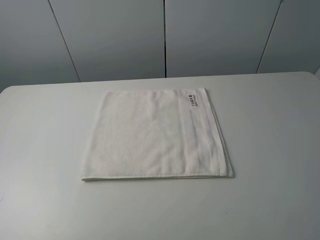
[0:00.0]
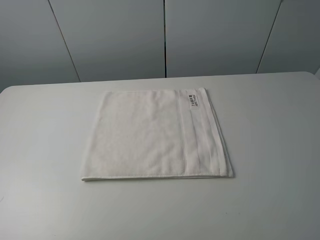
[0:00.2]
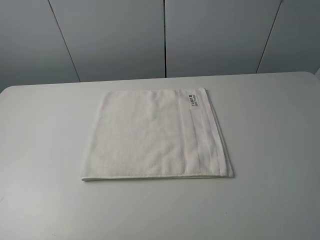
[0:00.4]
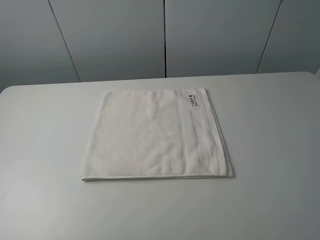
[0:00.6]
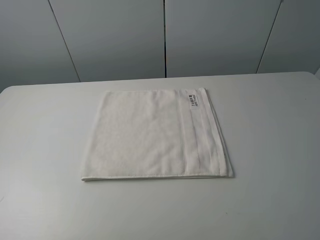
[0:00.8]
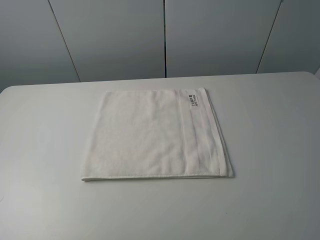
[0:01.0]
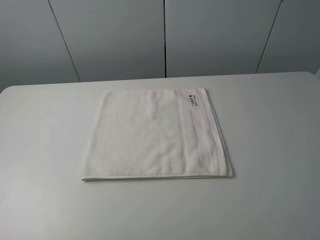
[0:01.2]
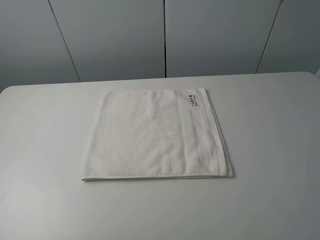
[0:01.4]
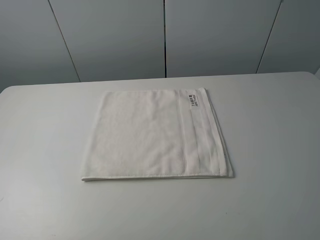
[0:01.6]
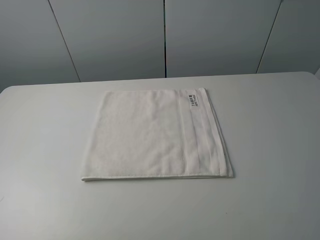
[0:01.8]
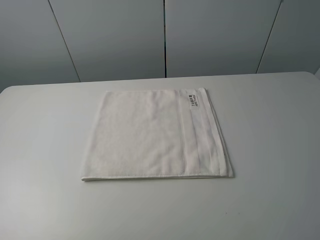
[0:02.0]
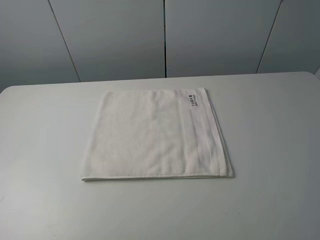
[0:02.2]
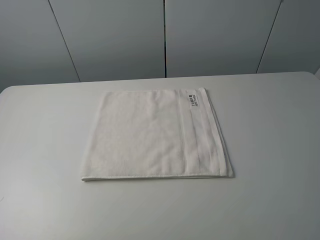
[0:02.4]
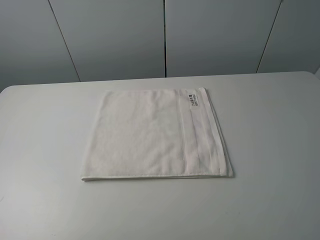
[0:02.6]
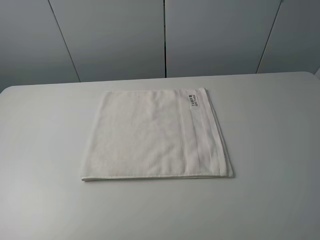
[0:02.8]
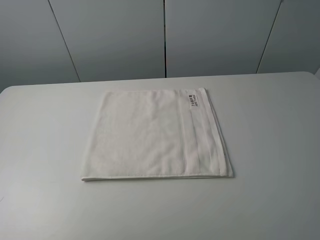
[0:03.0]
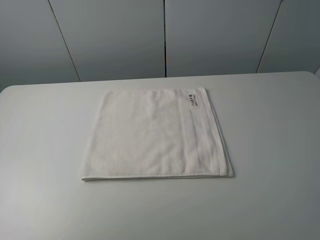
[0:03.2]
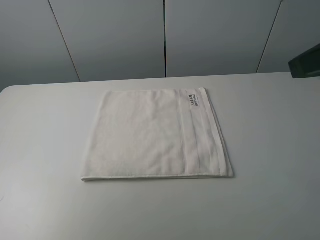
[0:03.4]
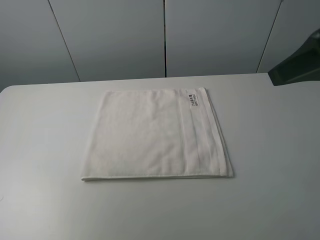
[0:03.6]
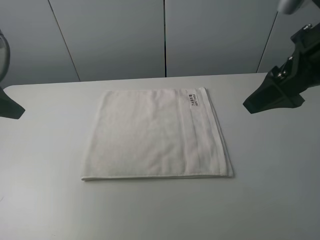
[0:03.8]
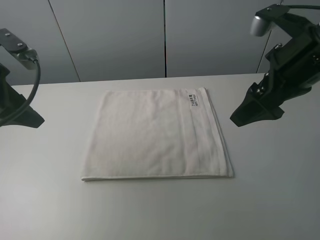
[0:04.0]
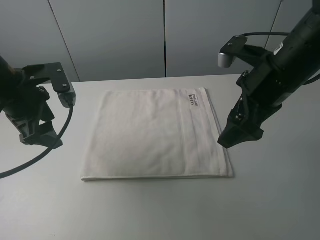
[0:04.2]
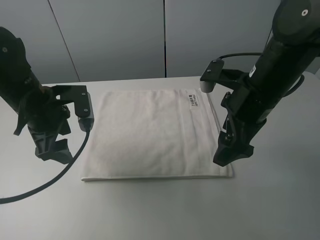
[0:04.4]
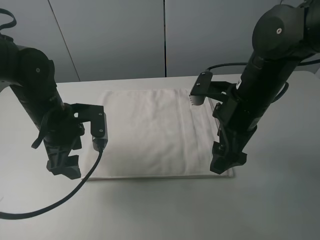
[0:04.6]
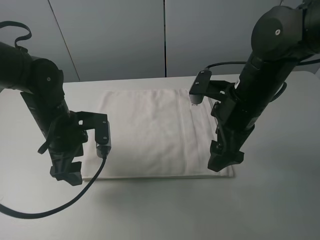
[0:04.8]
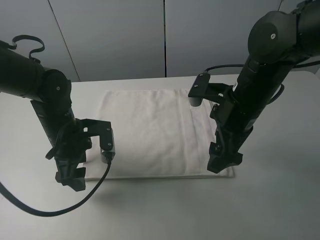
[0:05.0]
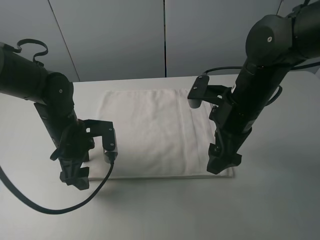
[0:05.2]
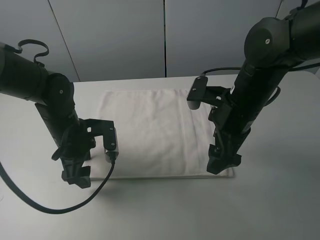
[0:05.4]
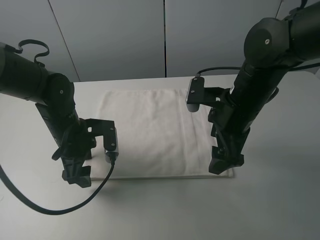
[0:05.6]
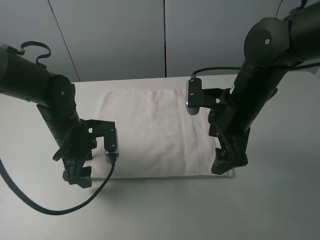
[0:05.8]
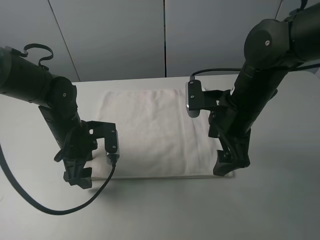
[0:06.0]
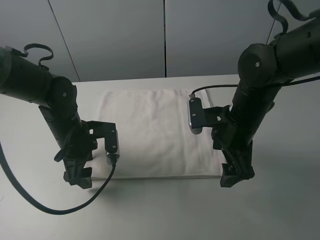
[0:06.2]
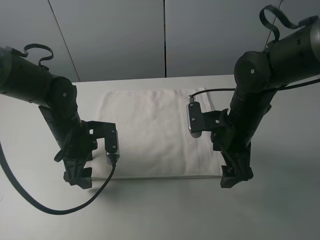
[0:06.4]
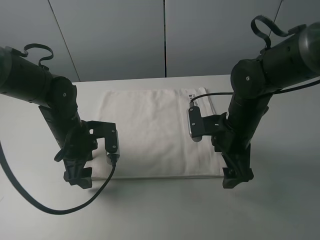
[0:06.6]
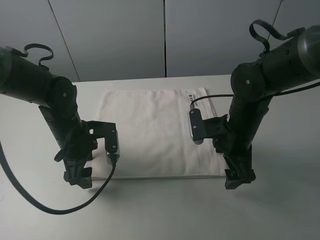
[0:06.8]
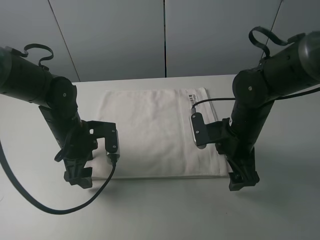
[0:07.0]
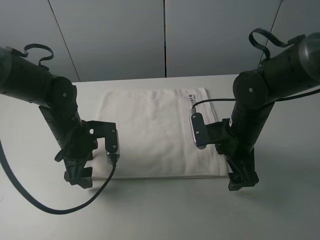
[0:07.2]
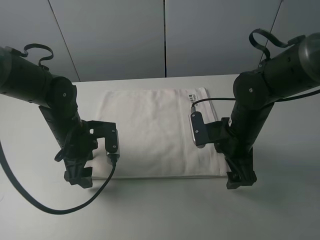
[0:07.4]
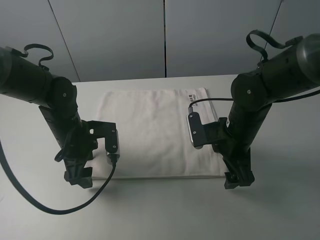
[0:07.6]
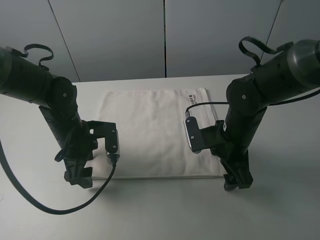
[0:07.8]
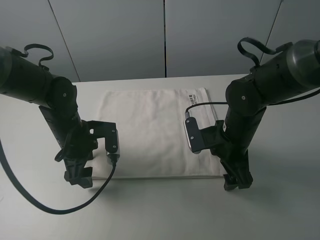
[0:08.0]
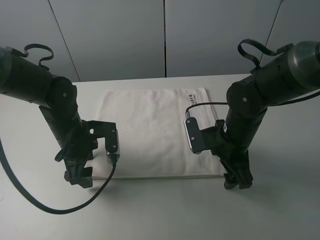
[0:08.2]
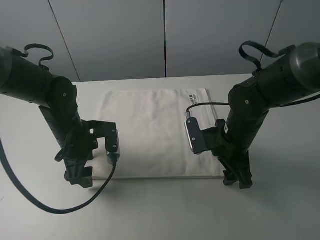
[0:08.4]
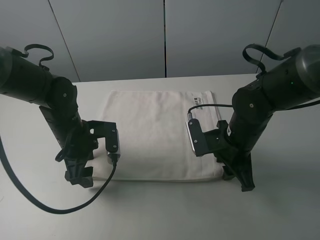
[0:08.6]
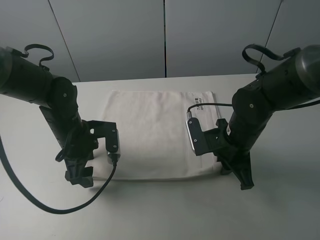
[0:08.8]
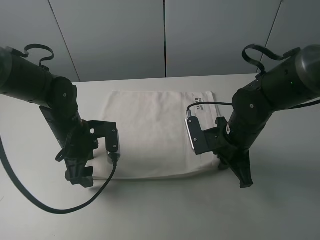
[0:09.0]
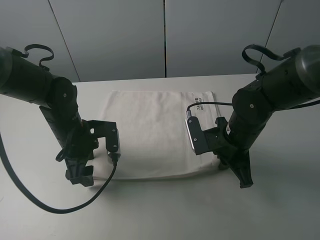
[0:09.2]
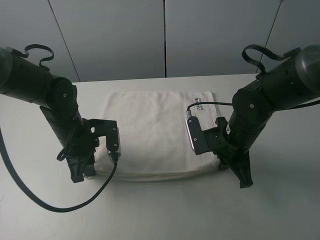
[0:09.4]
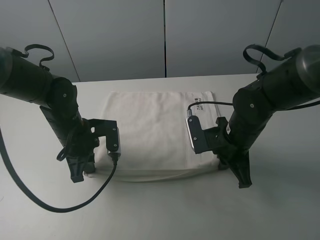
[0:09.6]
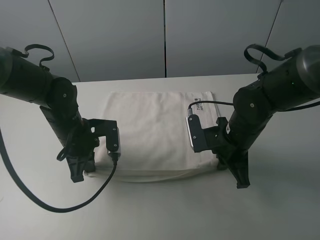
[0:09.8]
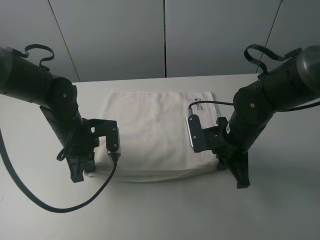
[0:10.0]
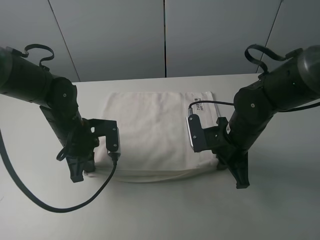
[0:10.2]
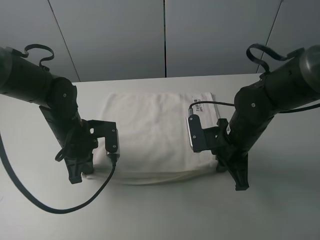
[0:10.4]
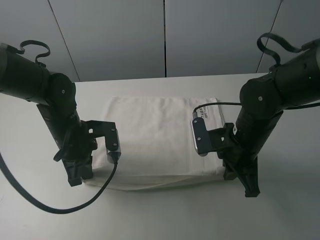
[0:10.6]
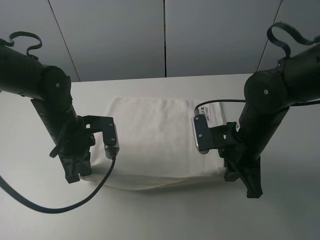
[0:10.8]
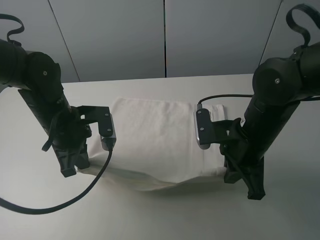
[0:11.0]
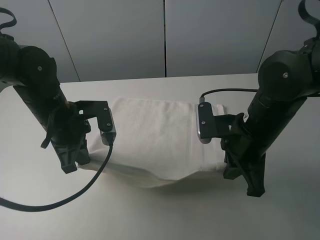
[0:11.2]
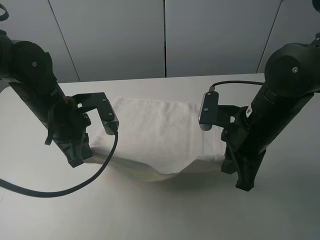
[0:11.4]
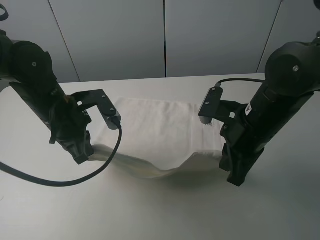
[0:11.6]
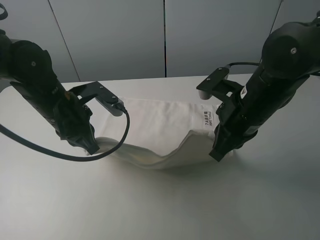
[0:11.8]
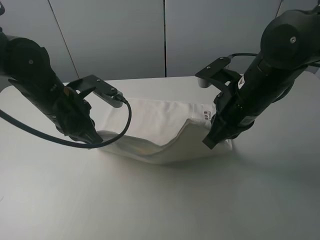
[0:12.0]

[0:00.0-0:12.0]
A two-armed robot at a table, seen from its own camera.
Task of the whole recording: fold the towels on the table.
Step, 0:00.0 to 0:08.8: Grasp the white towel with the right gripper.
Step, 0:09.0 to 0:09.6: Grasp the white towel with the left gripper.
0:00.0 to 0:01.6: The two grippers keep their place.
0:03.0 to 0:04.4: The left gripper travels forward, to the right and downward by some 30 cm. Meanwhile the right gripper is displaced forward, downward and to the left by roughly 25 cm.
0:04.4 to 0:06.0: The left gripper goes some 10 cm downward.
0:06.0 to 0:07.6: The right gripper shifts some 5 cm downward.
0:07.6 to 0:09.0: The right gripper closes its fingers.
0:09.0 to 0:10.4: The left gripper closes.
0:10.4 to 0:12.0: Both grippers travel together upward, roughly 10 cm.

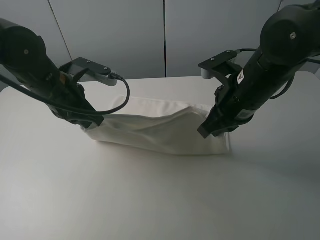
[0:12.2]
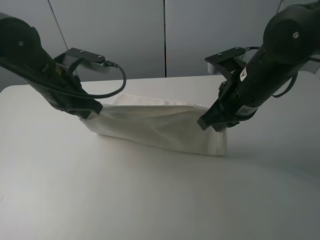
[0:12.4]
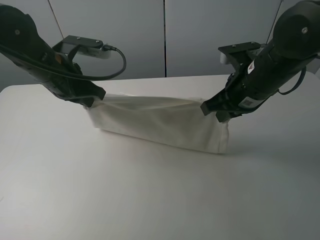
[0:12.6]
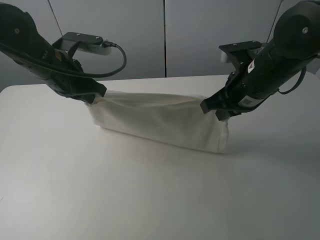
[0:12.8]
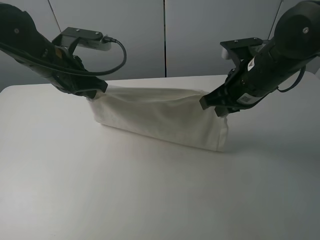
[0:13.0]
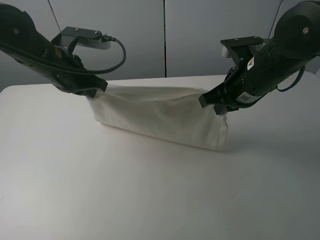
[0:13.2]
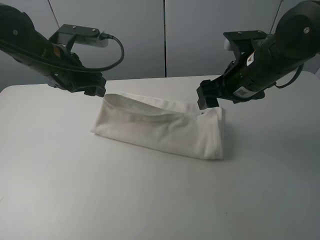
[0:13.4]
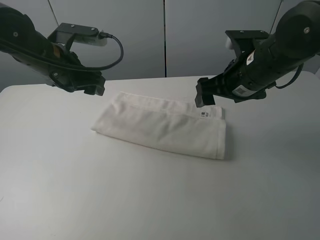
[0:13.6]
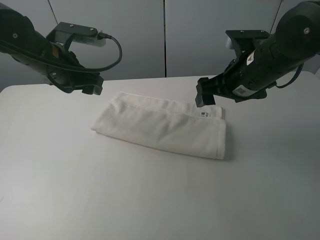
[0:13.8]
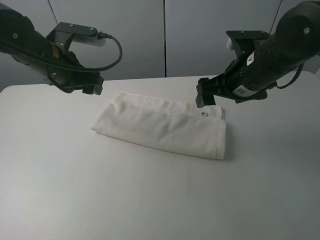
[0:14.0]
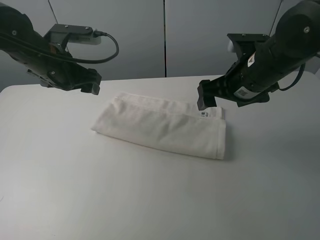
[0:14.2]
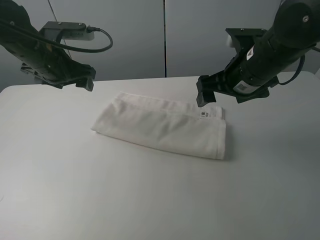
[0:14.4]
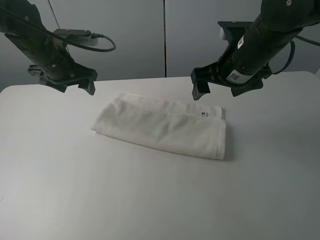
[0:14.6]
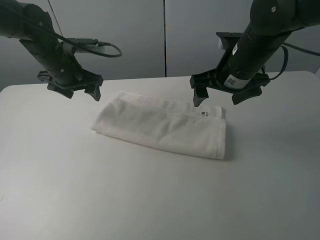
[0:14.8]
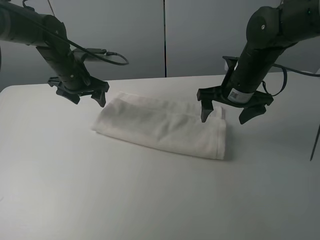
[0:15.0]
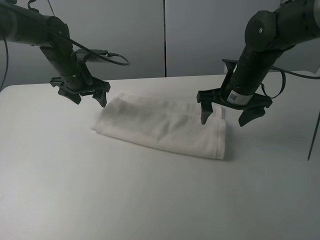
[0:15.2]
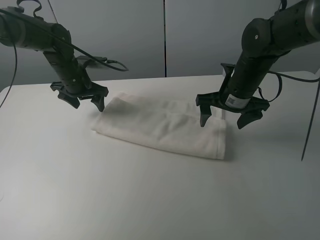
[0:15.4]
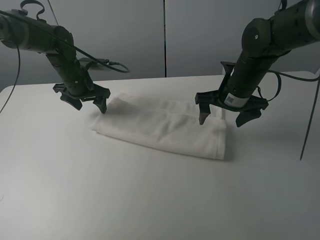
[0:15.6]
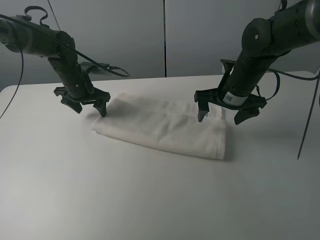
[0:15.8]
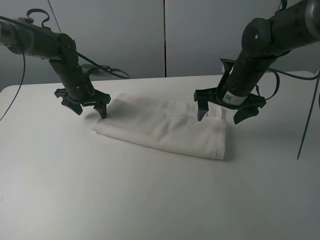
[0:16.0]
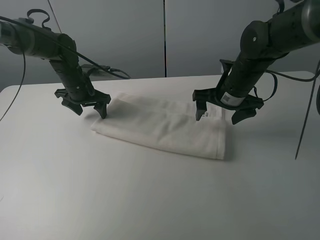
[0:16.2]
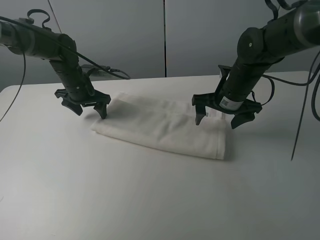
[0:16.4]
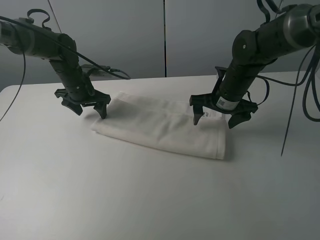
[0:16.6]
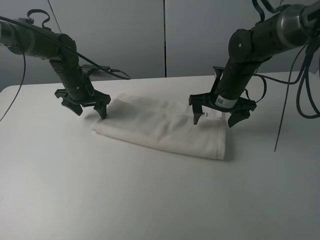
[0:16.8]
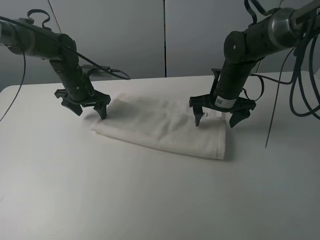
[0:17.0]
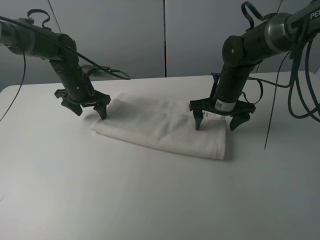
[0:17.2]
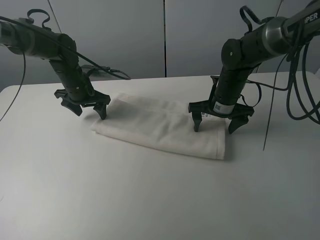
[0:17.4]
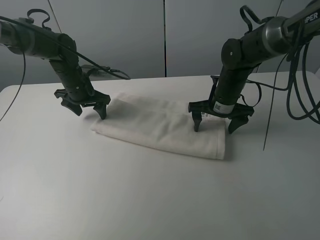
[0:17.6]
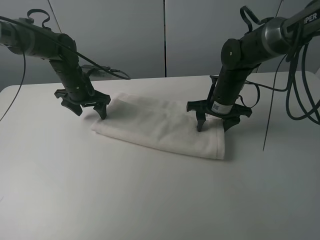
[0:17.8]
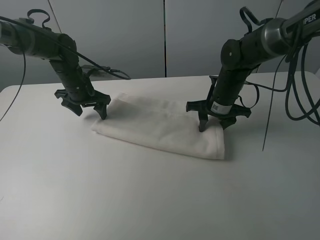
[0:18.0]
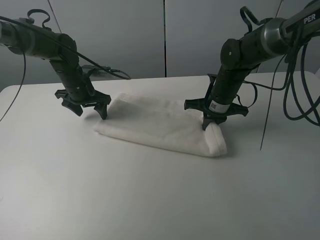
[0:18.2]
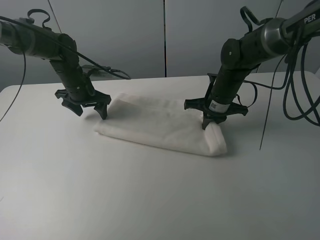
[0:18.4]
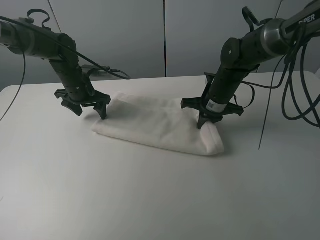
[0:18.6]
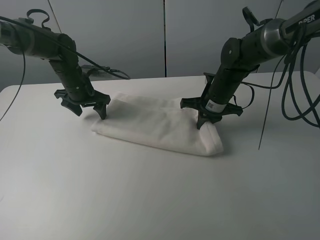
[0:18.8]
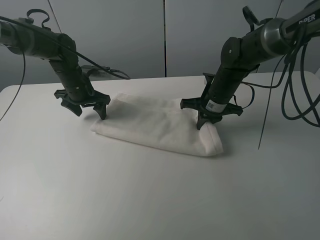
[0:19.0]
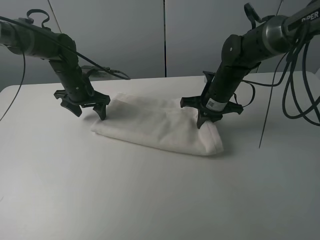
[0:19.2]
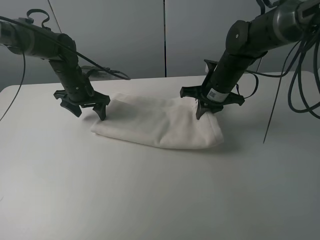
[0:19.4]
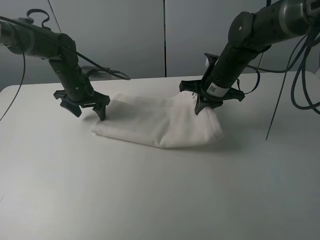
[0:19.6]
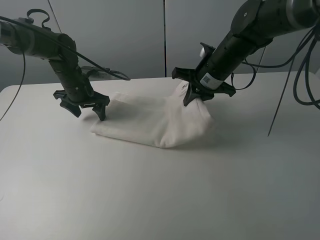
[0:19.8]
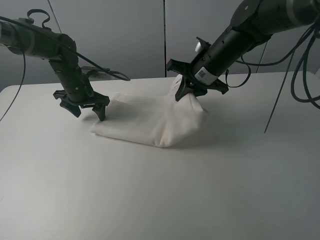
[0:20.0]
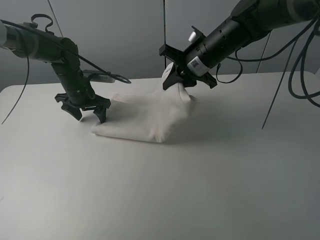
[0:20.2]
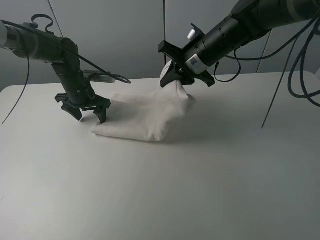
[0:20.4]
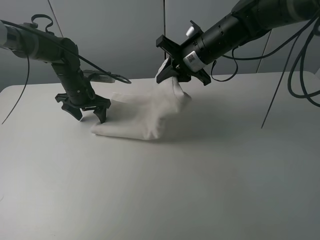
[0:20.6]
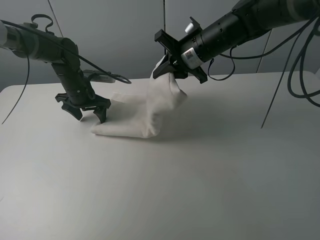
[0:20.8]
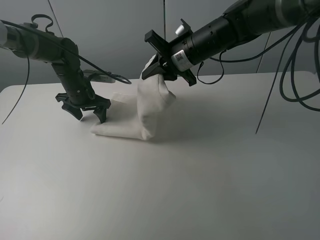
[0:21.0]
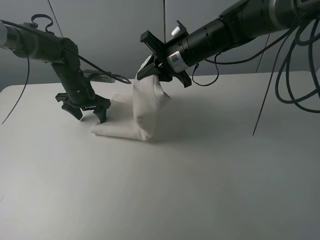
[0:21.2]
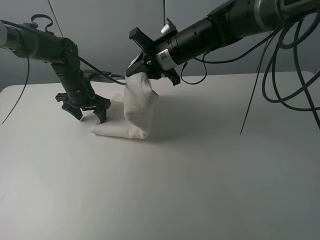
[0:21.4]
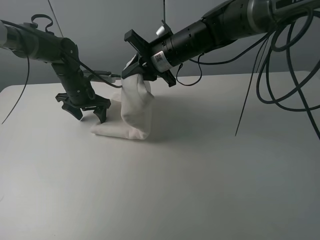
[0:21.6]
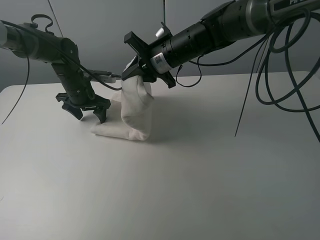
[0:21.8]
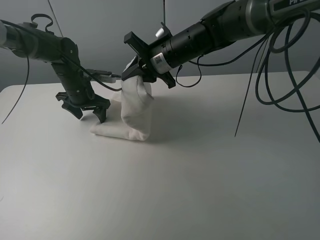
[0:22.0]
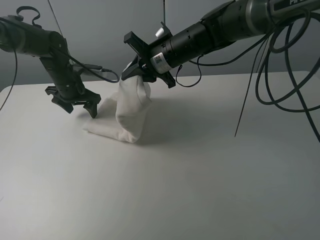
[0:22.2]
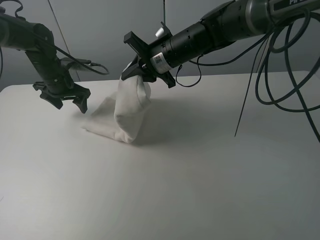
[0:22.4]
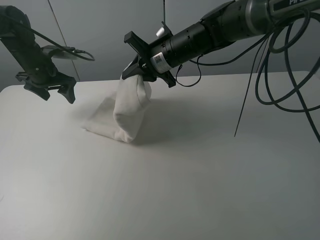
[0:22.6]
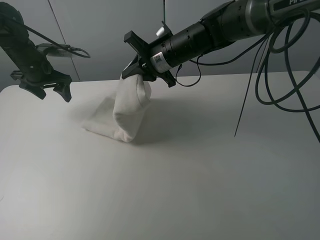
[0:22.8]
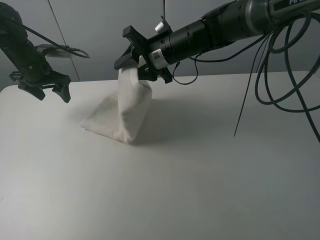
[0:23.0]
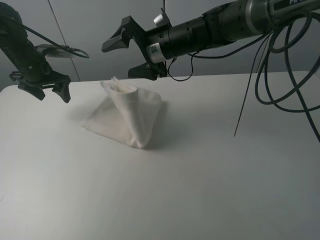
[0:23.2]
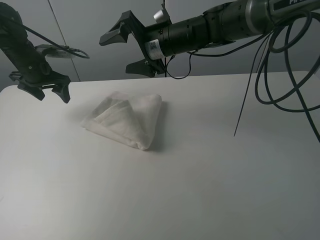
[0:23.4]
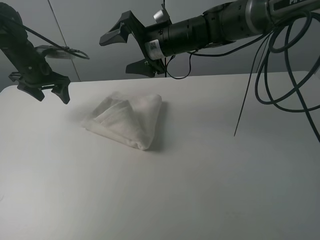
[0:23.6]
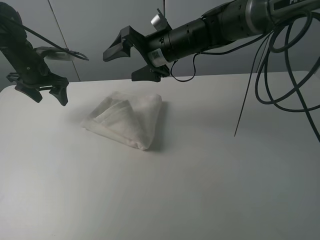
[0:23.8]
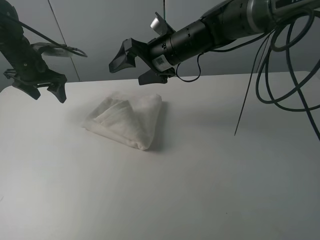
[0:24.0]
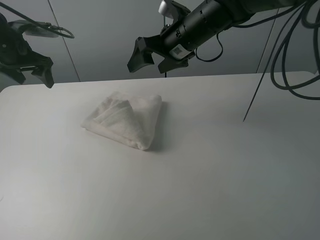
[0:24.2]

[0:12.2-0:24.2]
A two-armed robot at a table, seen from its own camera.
Task of the whole recording: fold the towels on the table.
Step, 0:13.8 to 0:16.0: Press on the white towel with the left gripper.
Step, 0:16.2 to 0:23.4: Fold the white towel from right to left with right gripper.
0:12.2 to 0:13.8: The right gripper opens its fingers. The left gripper opens its fingers.
0:13.8 to 0:15.2: The left gripper heads forward and downward, covering approximately 10 cm; the right gripper goes roughly 5 cm downward.
0:15.2 to 0:16.6: The grippers move only a little.
0:16.6 to 0:18.2: The right gripper closes its fingers.
0:18.2 to 0:19.8: The right gripper is displaced upward by approximately 5 cm.
0:19.8 to 0:21.2: The right gripper moves to the left, roughly 5 cm.
0:21.2 to 0:22.6: The left gripper is displaced to the left and upward by approximately 10 cm.
0:22.6 to 0:24.2: The right gripper ends up some 5 cm from where it was, and opens its fingers. Meanwhile the left gripper moves upward, approximately 5 cm.
